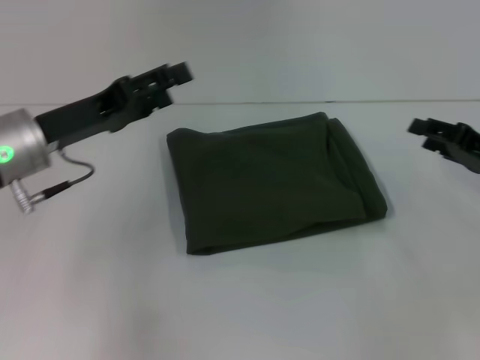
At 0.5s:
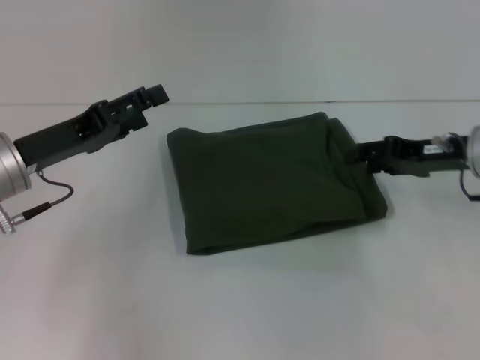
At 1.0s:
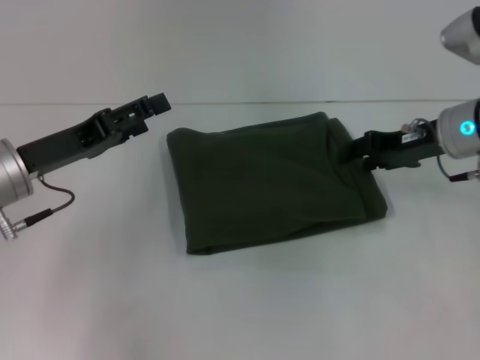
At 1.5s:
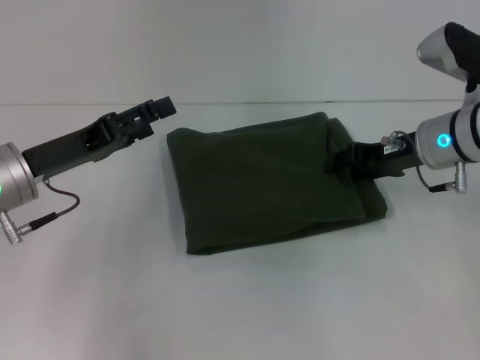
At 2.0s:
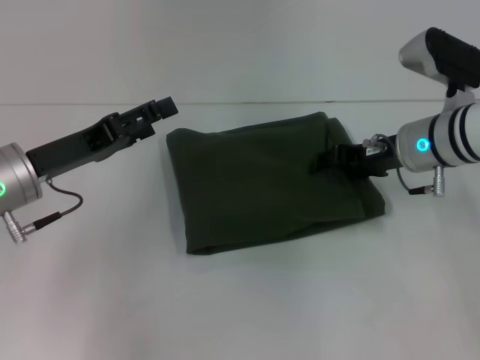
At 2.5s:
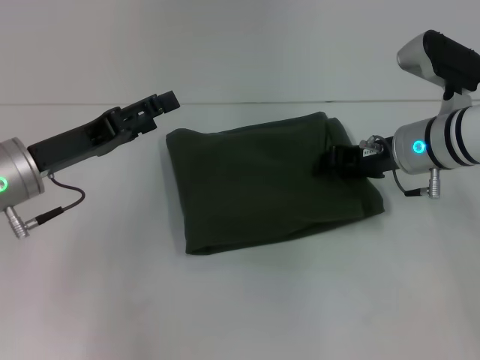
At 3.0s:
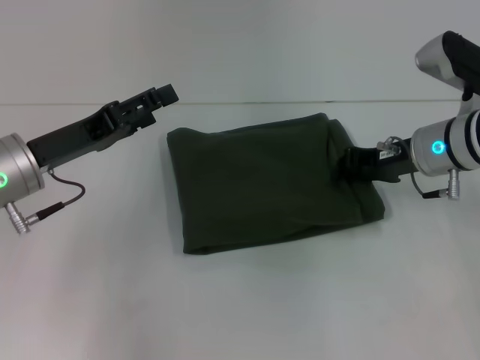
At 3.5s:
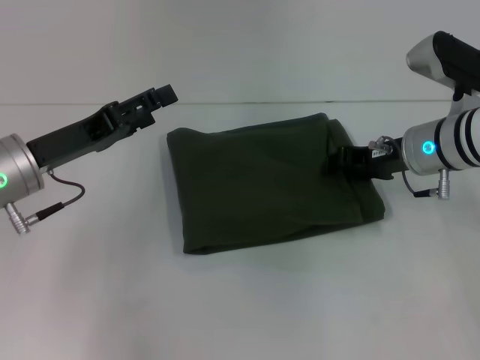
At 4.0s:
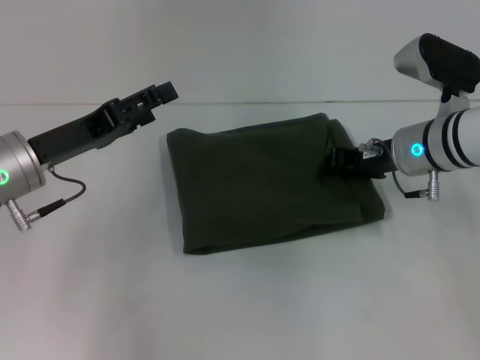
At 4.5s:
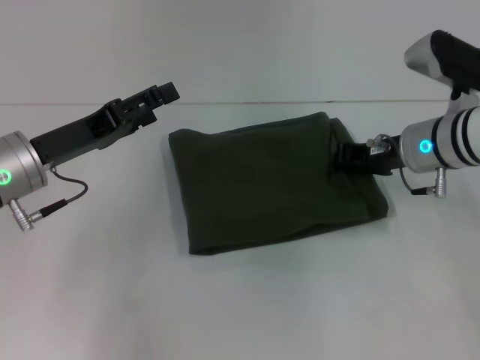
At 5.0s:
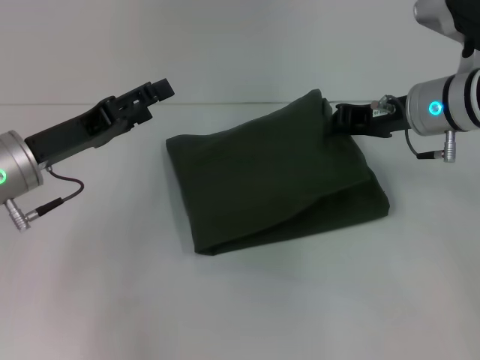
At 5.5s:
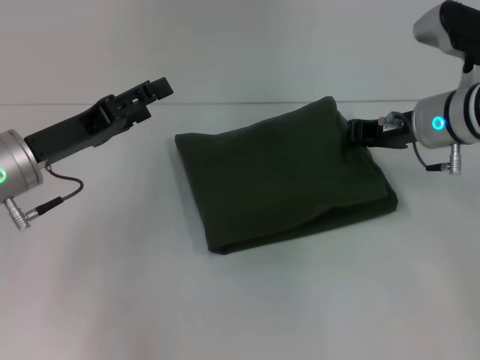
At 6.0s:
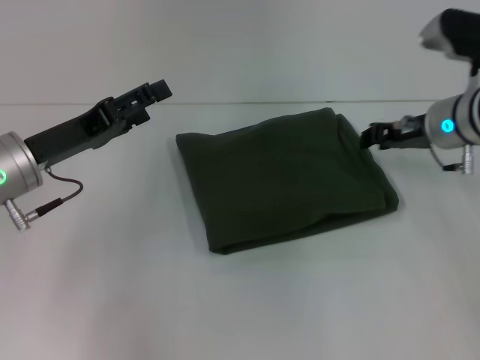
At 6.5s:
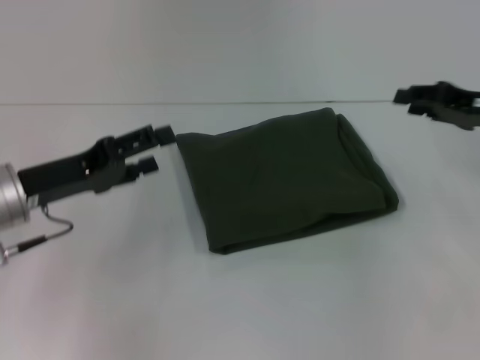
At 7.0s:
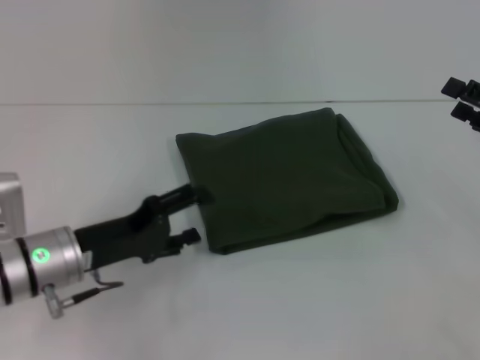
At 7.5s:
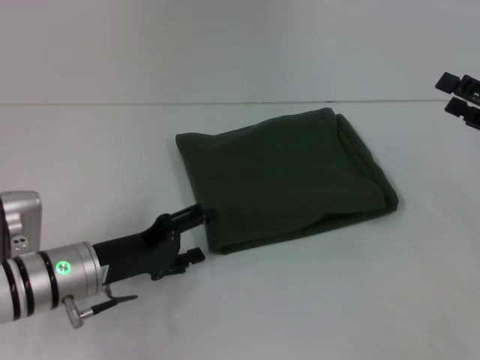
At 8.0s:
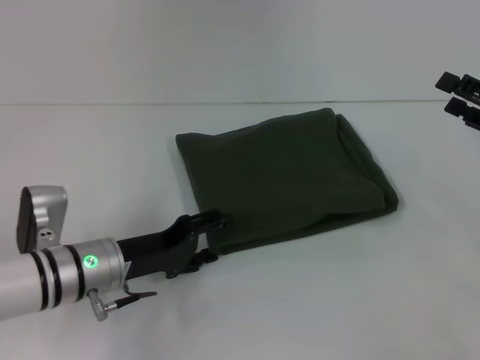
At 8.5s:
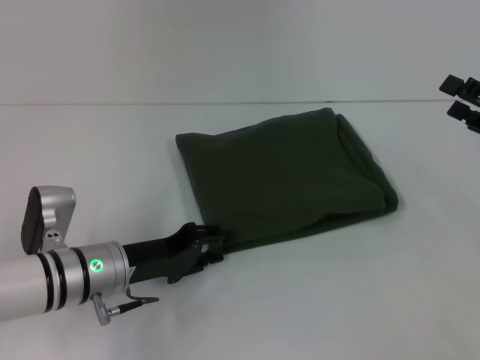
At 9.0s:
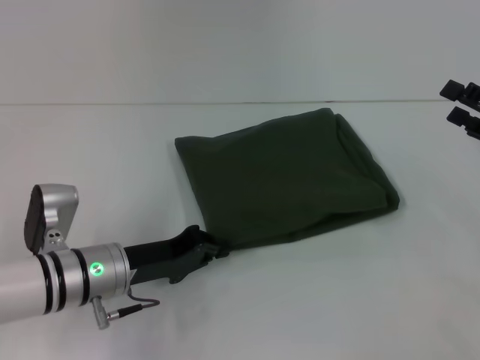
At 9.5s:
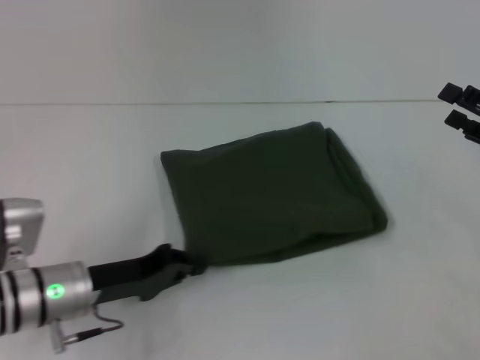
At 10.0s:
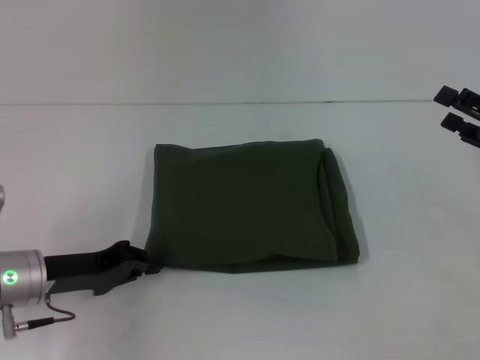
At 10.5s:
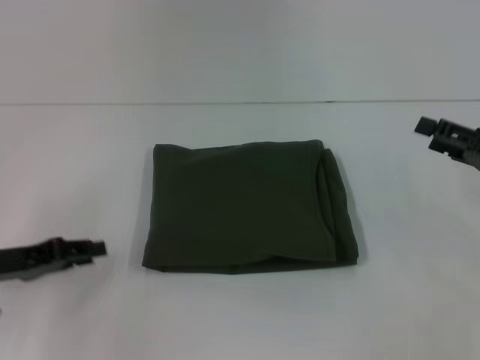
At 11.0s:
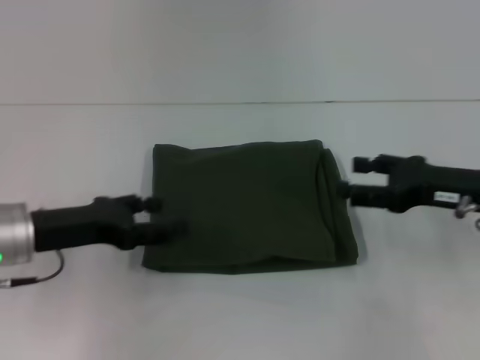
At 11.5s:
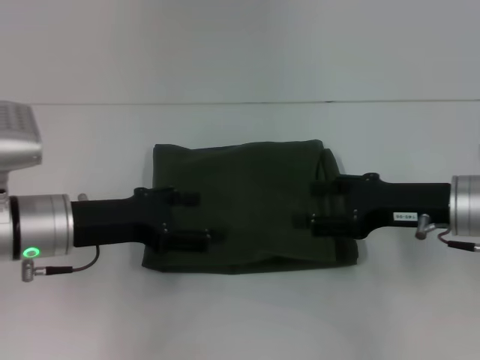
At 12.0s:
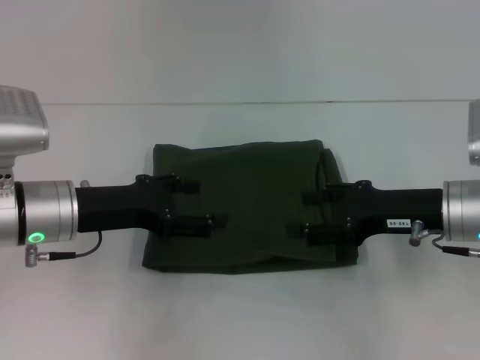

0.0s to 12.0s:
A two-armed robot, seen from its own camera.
0.0s to 2.0s: The right gripper travels to the left and forward by approximately 15 cm.
2.0s to 6.0s: The grippers make only small movements.
6.0s to 8.0s: The right gripper is displaced to the right and backward by about 15 cm, and opens its fingers; the left gripper shifts approximately 10 cm downward and to the right.
8.0s to 10.0s: The left gripper shifts roughly 5 cm to the left, and closes its fingers.
10.0s to 12.0s: The right gripper travels to the left by roughly 10 cm; the left gripper shifts approximately 5 cm upward, and opens its fingers.

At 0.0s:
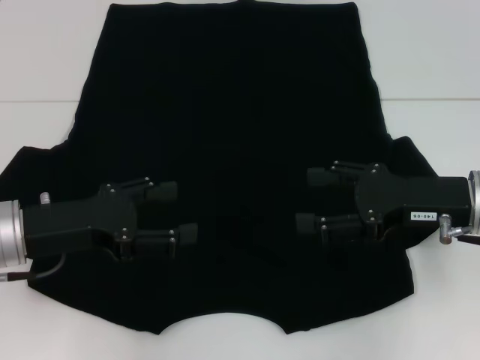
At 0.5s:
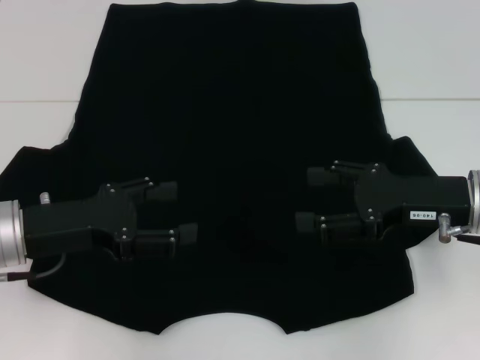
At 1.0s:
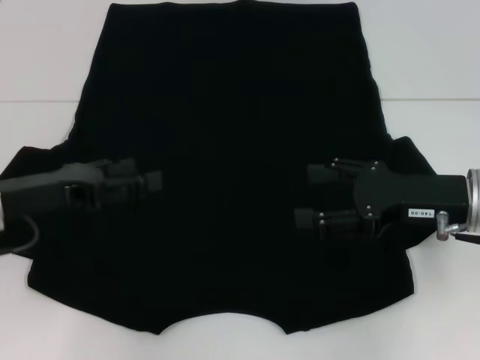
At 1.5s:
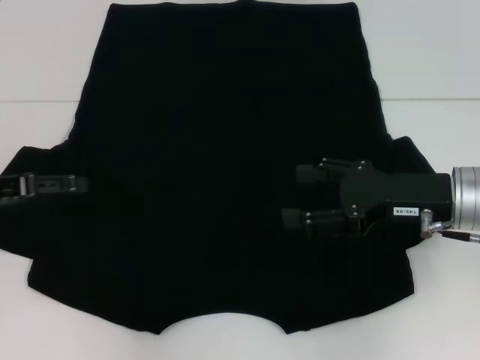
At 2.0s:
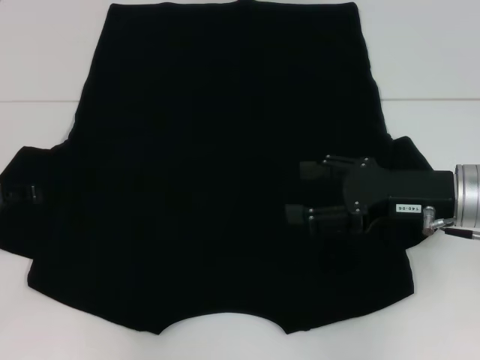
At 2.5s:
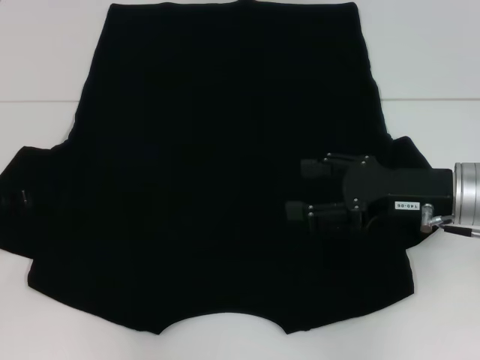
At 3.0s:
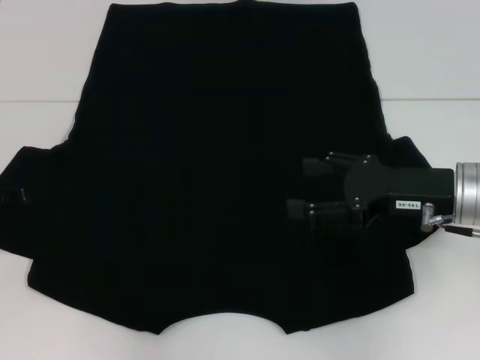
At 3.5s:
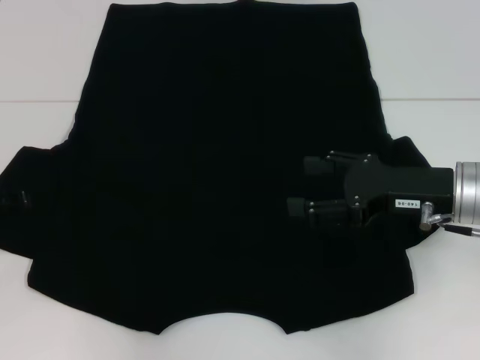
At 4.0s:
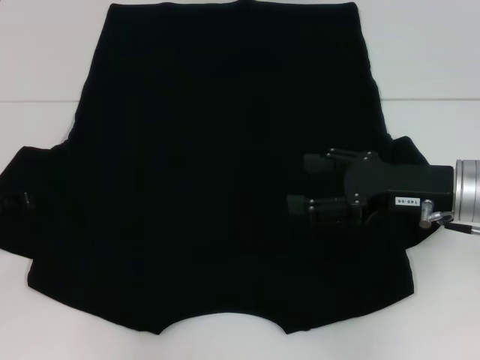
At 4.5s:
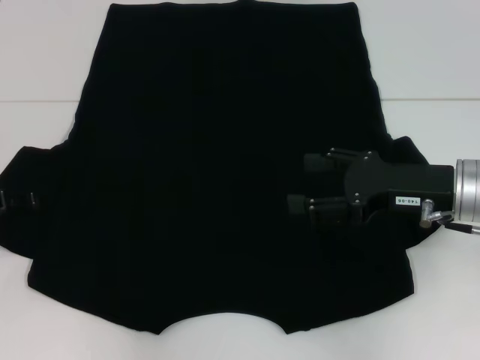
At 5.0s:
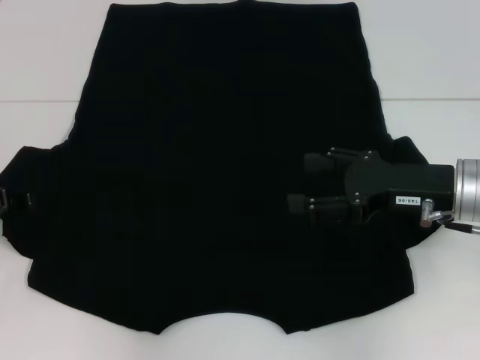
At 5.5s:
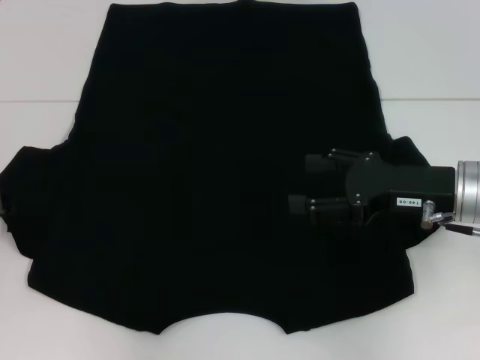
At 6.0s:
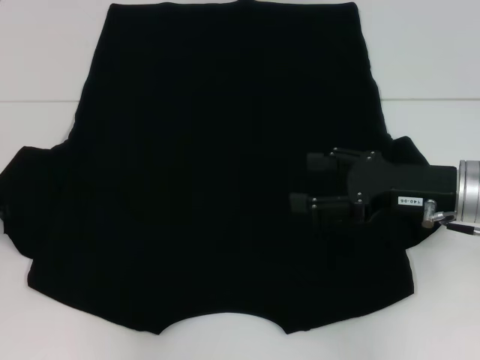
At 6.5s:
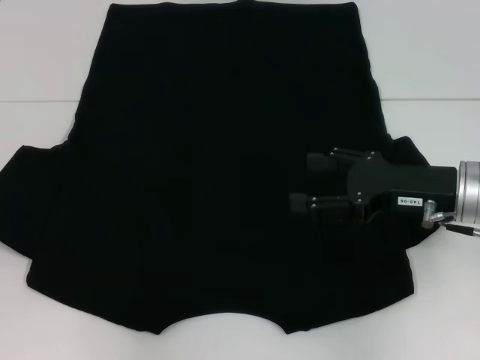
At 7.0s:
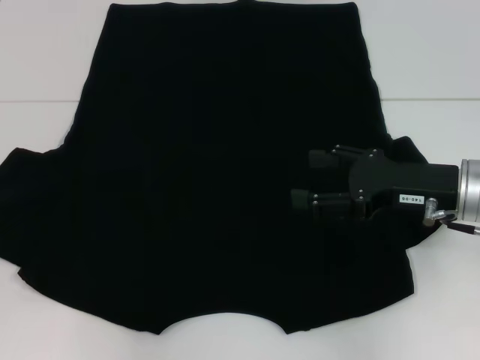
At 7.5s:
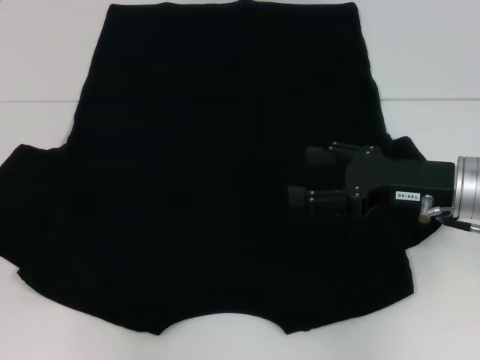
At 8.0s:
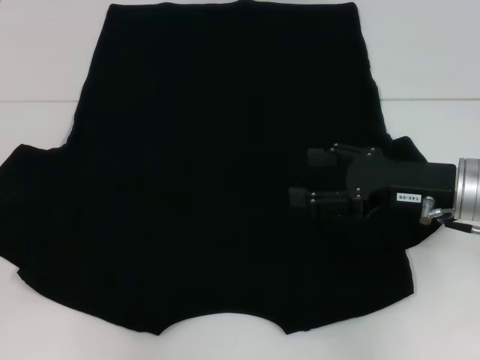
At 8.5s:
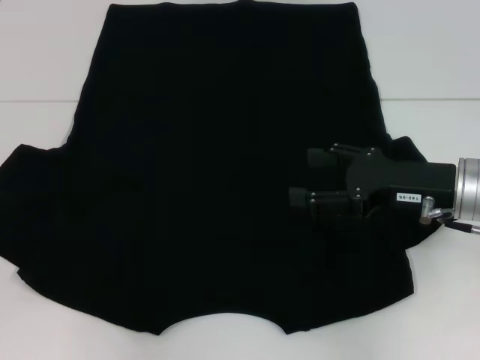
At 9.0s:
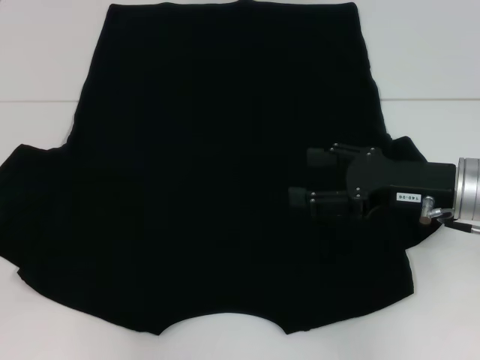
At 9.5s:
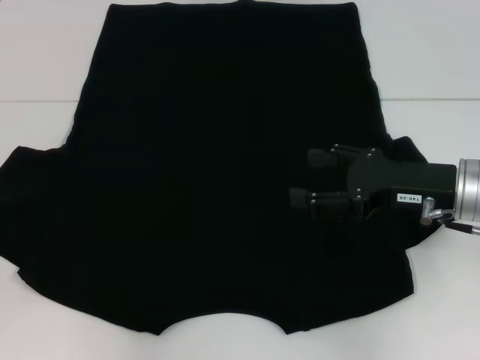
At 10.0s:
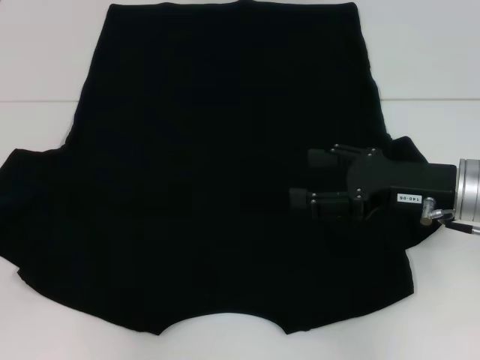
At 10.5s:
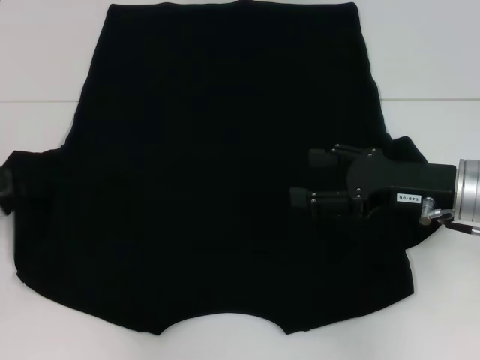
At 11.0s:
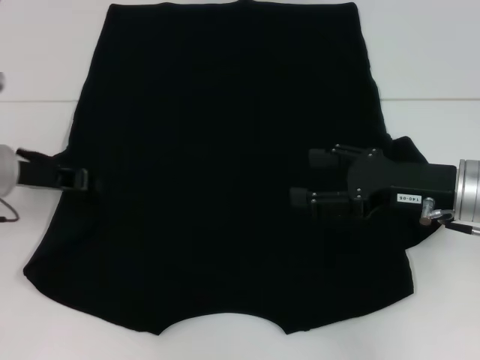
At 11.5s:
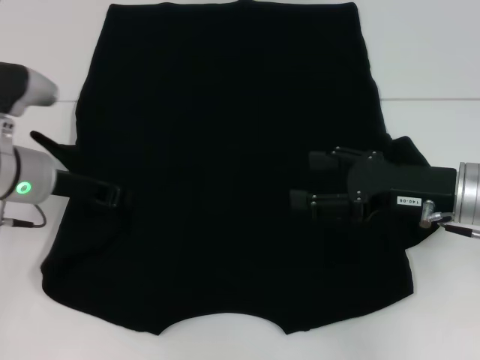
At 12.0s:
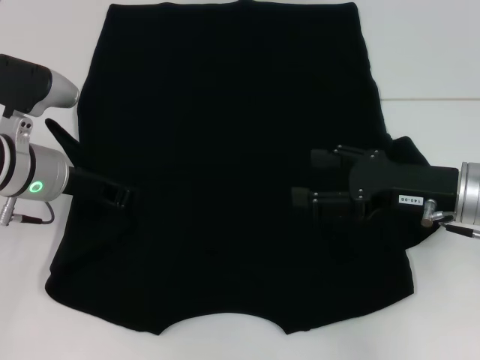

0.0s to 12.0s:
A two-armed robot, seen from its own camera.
0.0s to 2.0s: The left gripper travels to the left by some 10 cm.
2.0s to 4.0s: There are only small adjustments of the grippers.
6.0s to 8.0s: There are only small adjustments of the grippers.
10.0s to 12.0s: The left gripper shifts approximately 15 cm to the right.

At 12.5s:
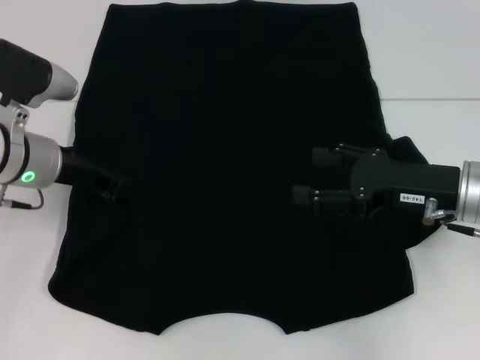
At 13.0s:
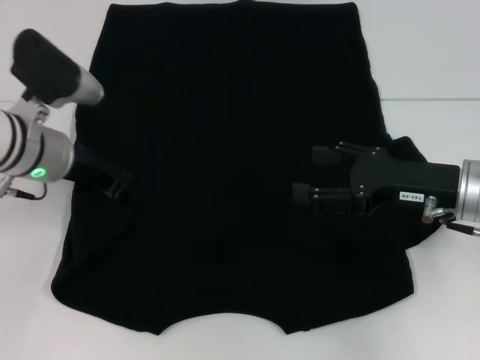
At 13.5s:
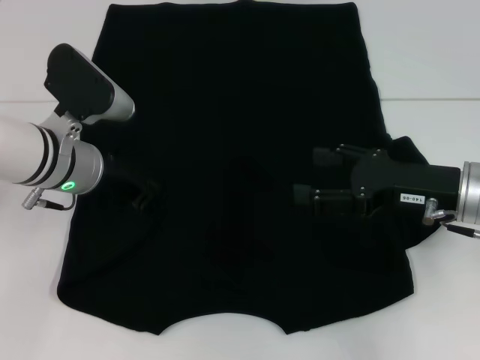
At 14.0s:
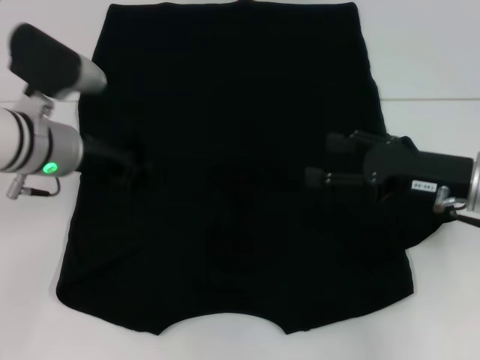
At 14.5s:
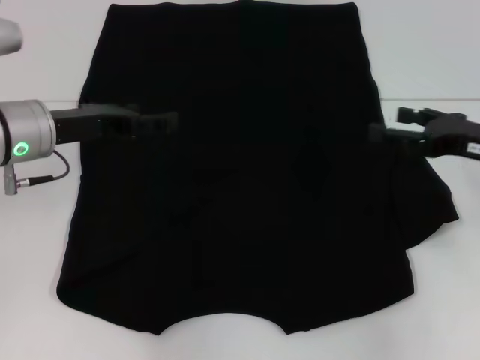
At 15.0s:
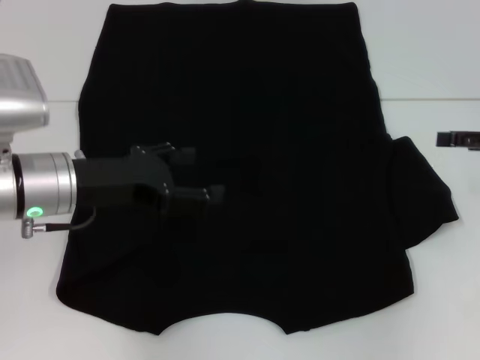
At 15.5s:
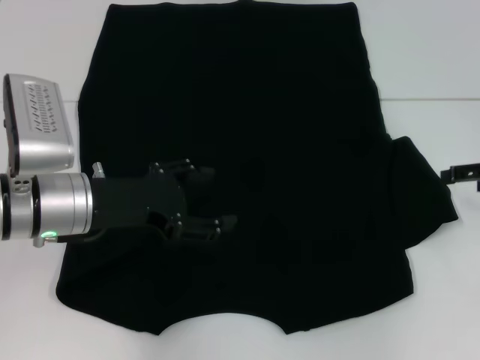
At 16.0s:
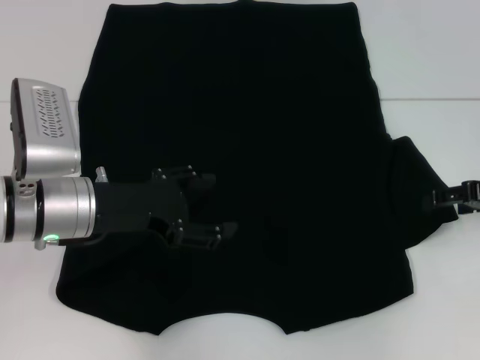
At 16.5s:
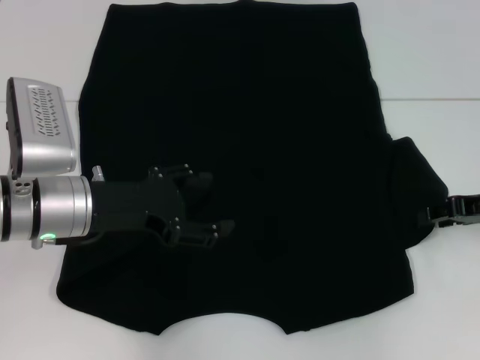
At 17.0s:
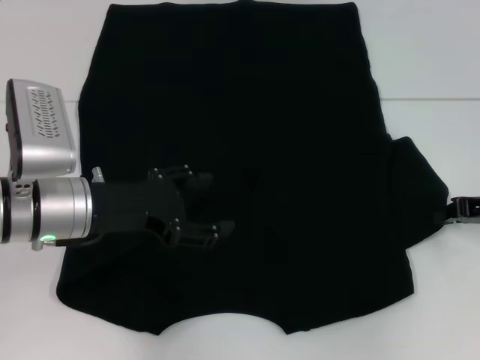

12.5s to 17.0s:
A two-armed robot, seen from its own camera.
12.5s to 14.5s: The left gripper opens up. The right gripper goes approximately 5 cm to the right.
14.5s to 17.0s: The right gripper closes. Meanwhile the left gripper shifts by about 5 cm.
